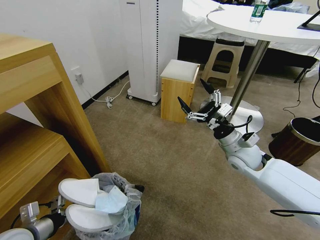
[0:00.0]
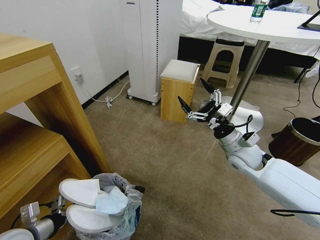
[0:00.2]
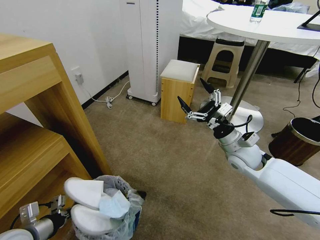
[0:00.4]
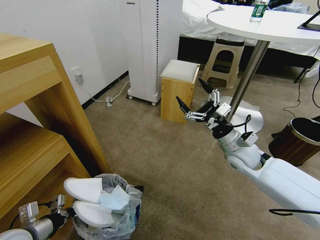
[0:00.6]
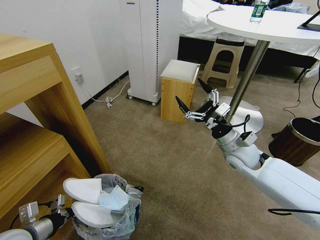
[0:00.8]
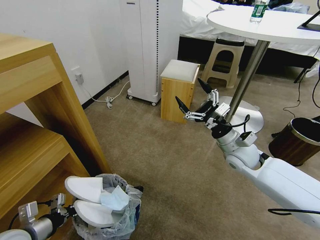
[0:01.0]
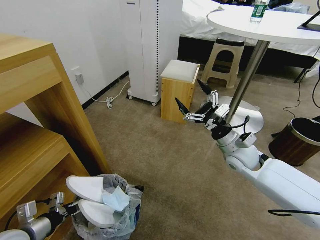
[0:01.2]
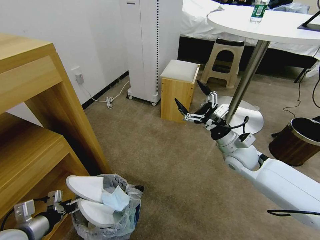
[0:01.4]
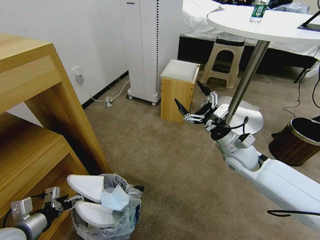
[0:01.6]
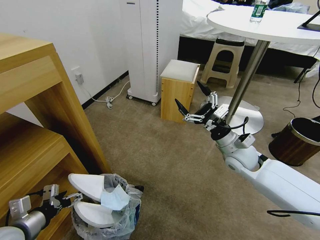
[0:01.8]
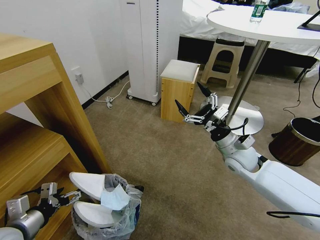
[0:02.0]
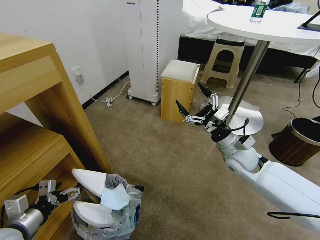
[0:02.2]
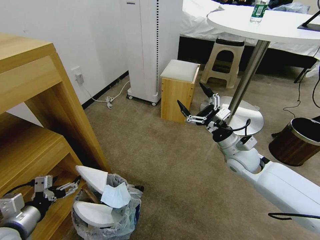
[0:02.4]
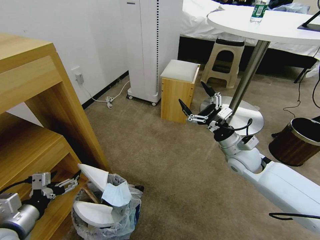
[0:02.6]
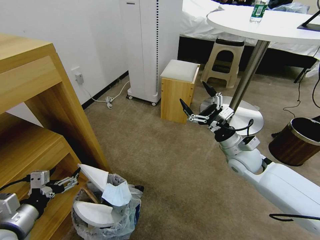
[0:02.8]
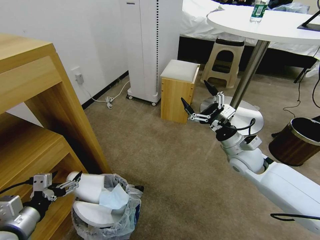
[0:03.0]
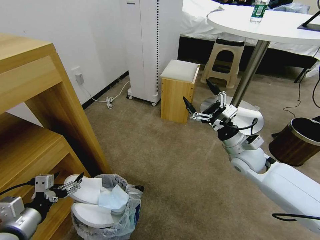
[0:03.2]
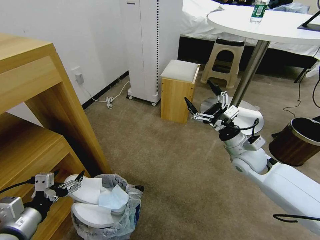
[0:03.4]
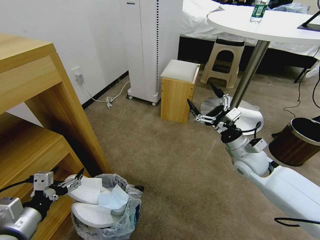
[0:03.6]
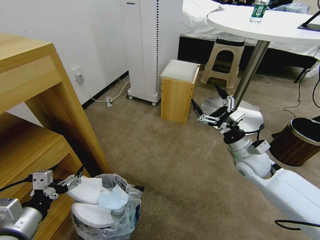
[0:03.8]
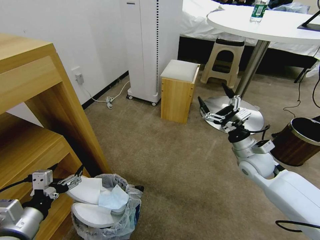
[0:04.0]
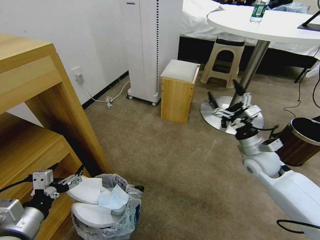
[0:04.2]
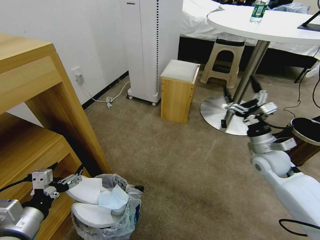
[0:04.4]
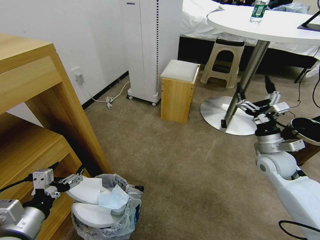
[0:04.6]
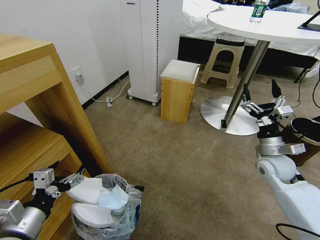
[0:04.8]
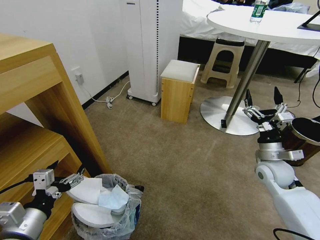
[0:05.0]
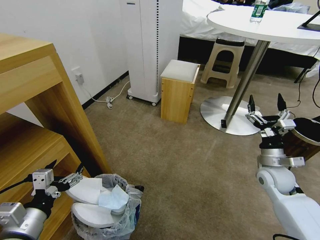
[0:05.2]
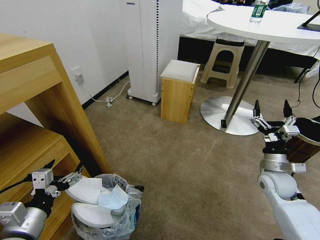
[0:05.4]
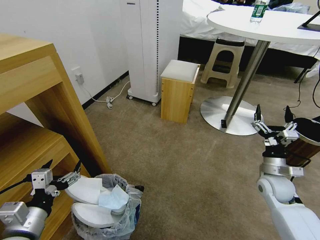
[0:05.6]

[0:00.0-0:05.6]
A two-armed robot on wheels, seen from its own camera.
Task of the whole recording: Pick up the trash bin and place the garbage on the floor into it.
0:00.0 to 0:01.4: The left gripper opens up.
0:01.4 to 0:02.8: The left gripper shifts some 5 cm upward.
0:02.8 to 0:04.2: The right gripper heads to the right, covering roughly 5 cm.
0:04.2 to 0:05.6: The right gripper heads downward and to the right, covering about 10 cm.
